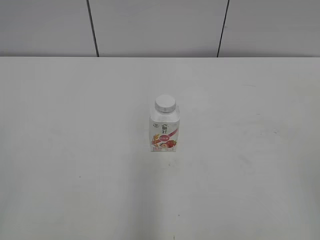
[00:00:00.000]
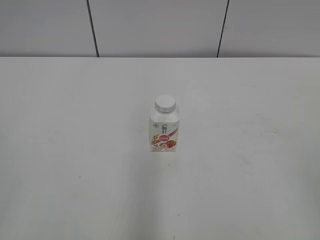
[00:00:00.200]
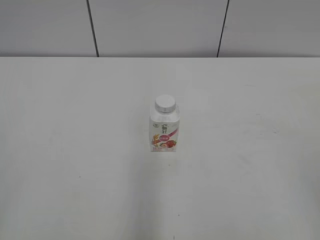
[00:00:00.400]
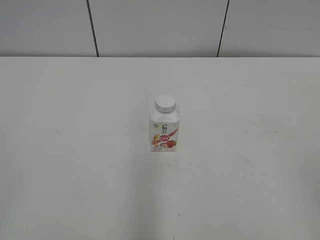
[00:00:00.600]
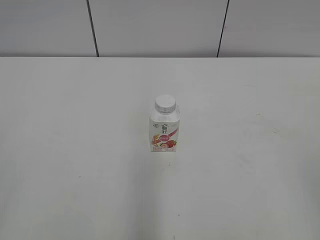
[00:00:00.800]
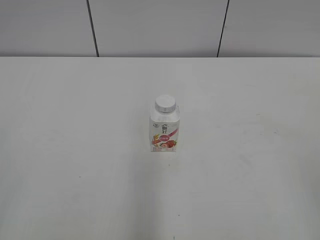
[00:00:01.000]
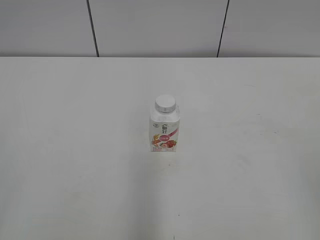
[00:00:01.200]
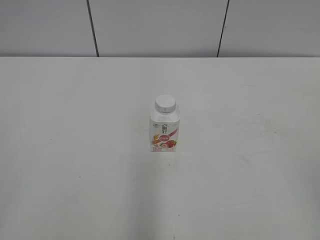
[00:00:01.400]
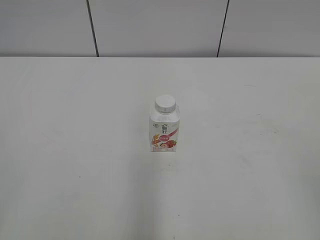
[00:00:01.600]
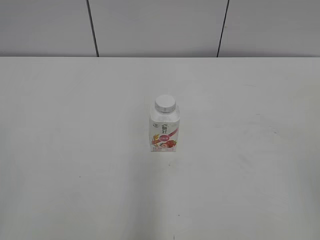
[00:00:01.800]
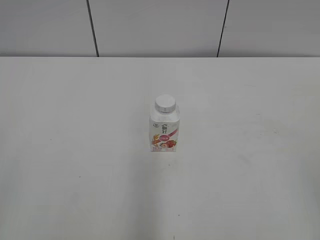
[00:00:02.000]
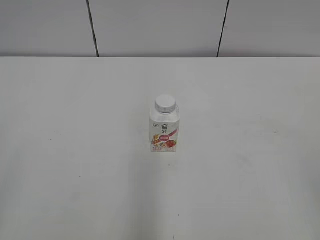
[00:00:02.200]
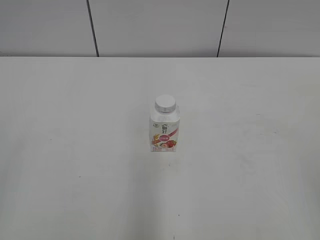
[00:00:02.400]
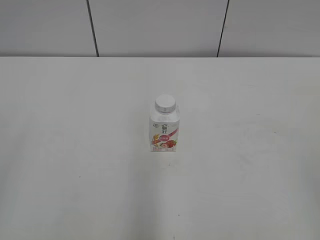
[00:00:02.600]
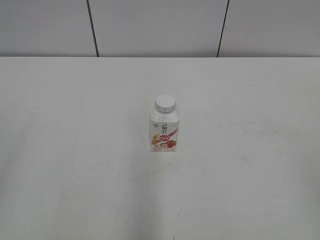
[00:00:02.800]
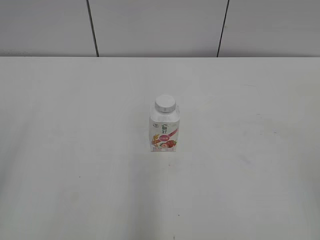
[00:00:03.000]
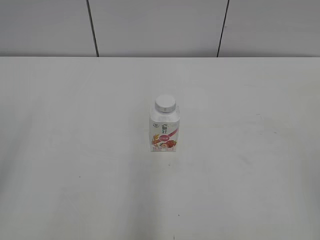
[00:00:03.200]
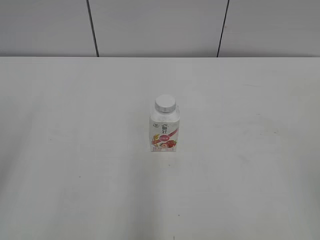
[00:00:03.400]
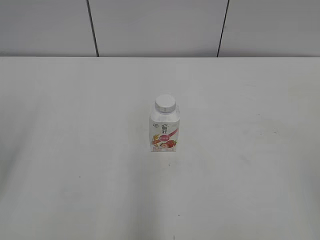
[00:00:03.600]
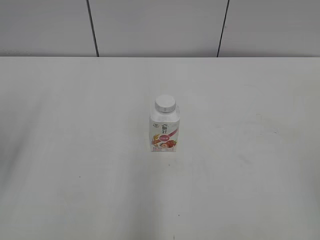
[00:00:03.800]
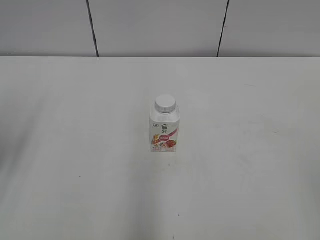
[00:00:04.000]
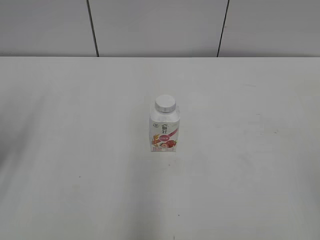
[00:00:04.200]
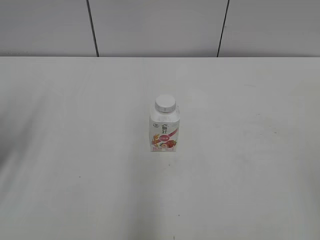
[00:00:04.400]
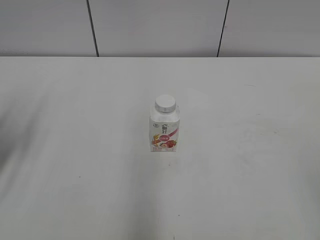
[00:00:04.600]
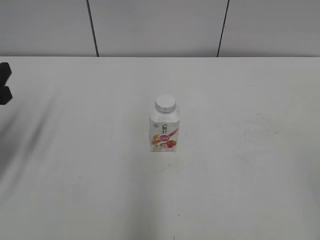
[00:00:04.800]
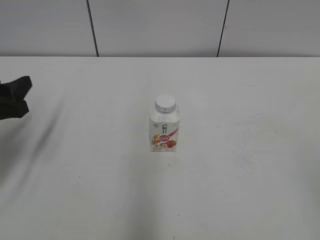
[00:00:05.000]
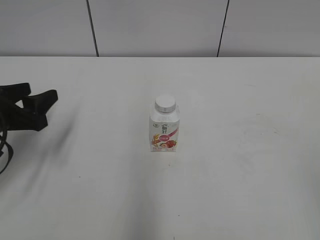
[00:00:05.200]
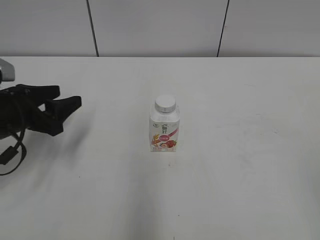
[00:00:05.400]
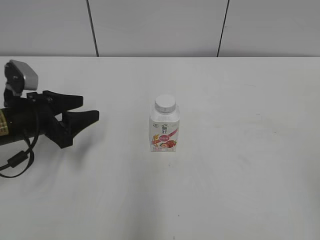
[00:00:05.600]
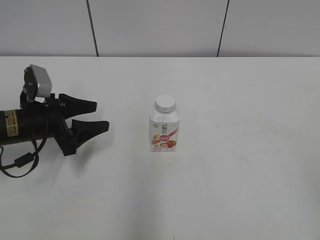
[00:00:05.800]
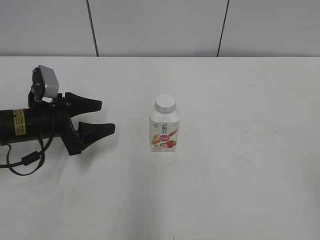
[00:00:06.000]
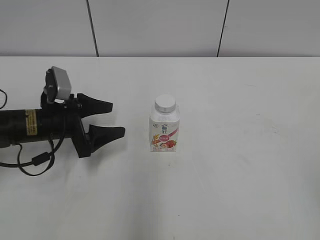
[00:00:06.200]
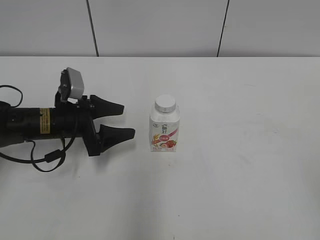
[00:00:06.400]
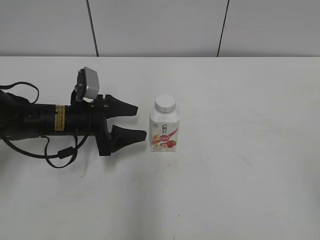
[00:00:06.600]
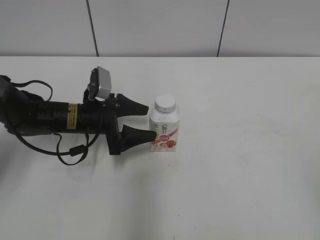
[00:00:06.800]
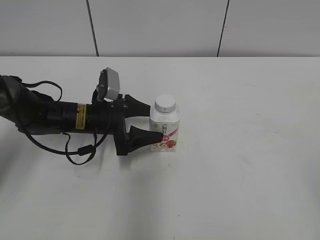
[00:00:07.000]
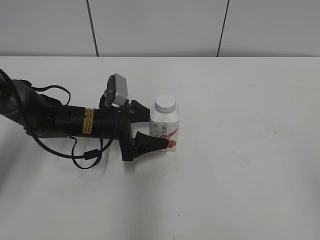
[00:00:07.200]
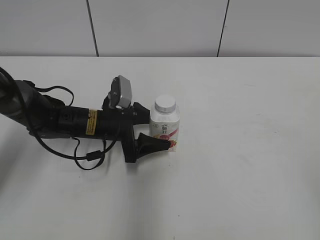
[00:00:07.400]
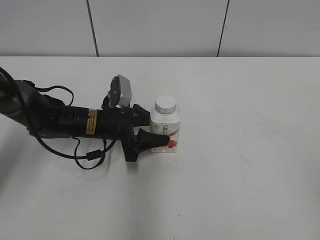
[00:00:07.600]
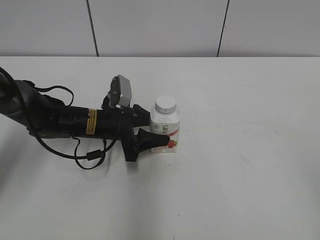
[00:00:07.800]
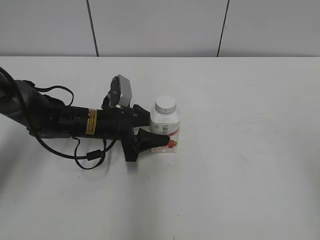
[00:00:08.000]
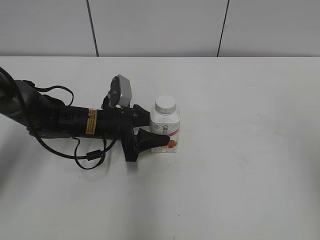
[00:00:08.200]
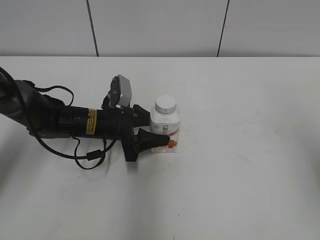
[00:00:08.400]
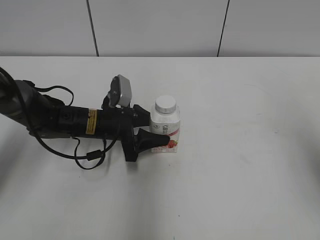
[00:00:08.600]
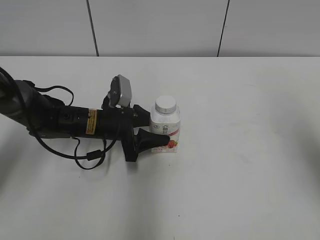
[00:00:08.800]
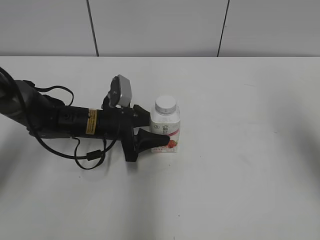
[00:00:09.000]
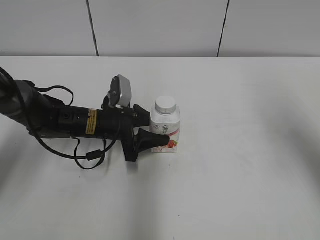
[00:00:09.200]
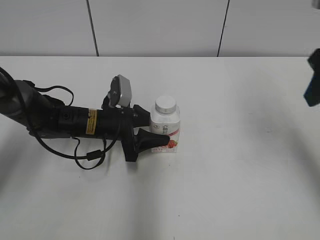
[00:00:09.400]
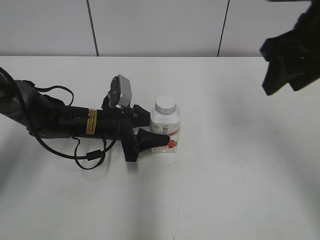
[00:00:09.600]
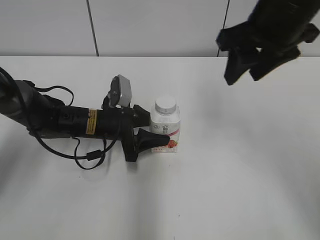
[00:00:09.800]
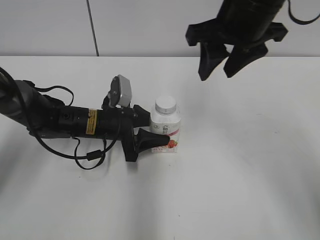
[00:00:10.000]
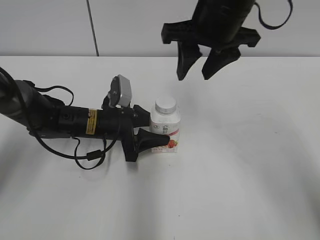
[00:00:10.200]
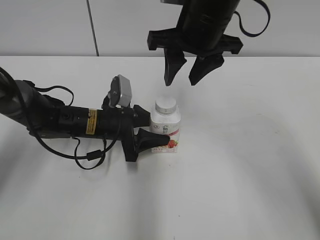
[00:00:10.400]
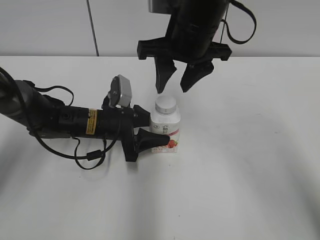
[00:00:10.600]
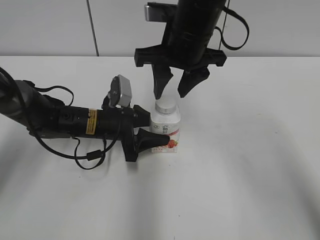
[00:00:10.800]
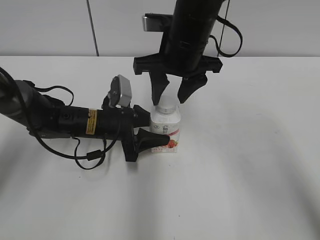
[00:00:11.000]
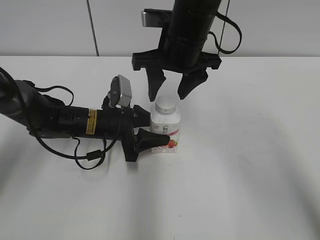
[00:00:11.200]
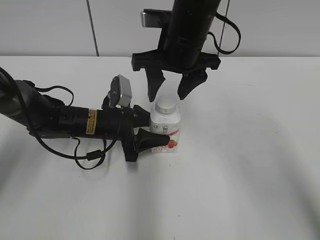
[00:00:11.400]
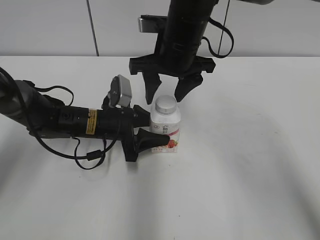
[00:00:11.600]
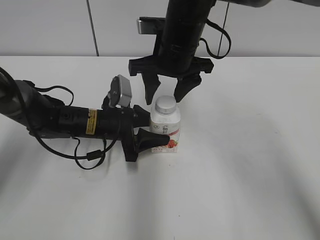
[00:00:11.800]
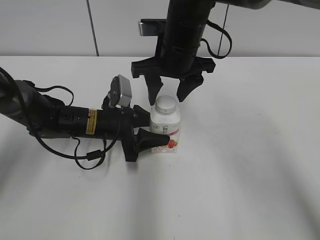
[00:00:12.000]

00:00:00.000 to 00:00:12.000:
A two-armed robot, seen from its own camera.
Step, 00:00:00.000 to 00:00:07.800: Grab the Yili Changqing with the left hand.
00:00:04.400 to 00:00:06.000: The left gripper shifts approximately 20 cm downward, forward and to the right.
00:00:06.000 to 00:00:07.600: The left gripper heads to the right, covering about 10 cm, and closes.
00:00:07.600 to 00:00:09.000: The right gripper heads forward, covering some 20 cm, and closes up.
00:00:09.000 to 00:00:10.400: The right gripper is displaced to the left and forward by roughly 25 cm.
00:00:10.400 to 00:00:12.000: The right gripper heads downward, covering about 5 cm, and opens up.

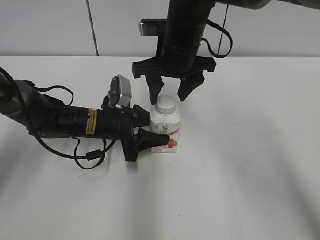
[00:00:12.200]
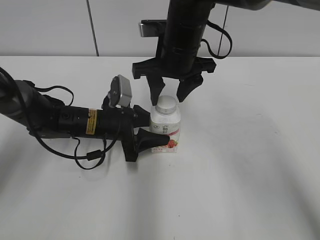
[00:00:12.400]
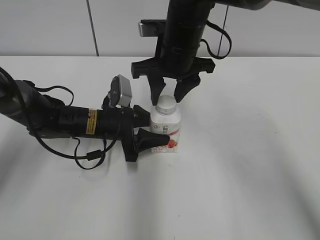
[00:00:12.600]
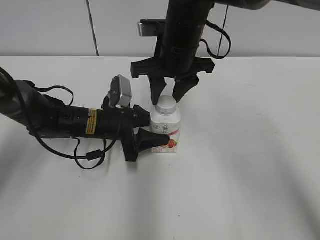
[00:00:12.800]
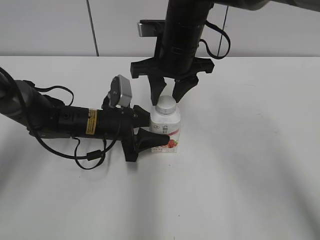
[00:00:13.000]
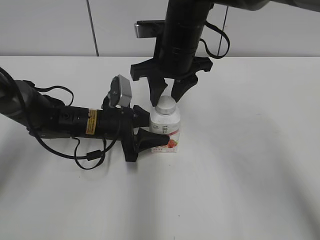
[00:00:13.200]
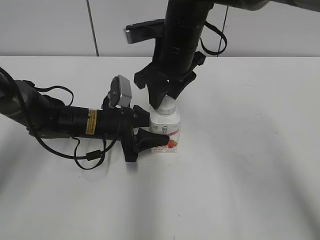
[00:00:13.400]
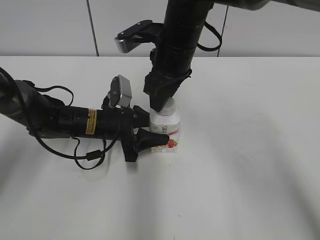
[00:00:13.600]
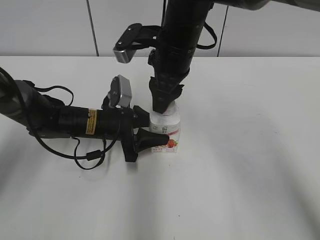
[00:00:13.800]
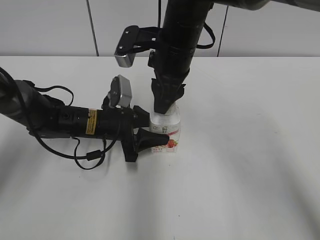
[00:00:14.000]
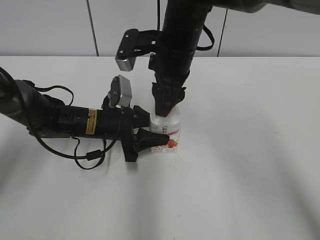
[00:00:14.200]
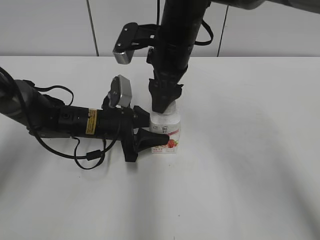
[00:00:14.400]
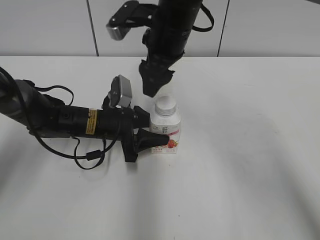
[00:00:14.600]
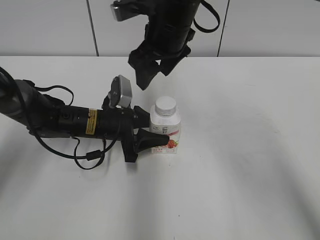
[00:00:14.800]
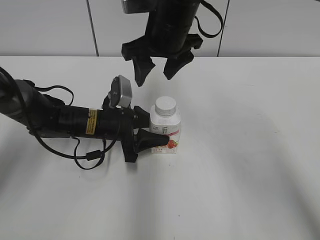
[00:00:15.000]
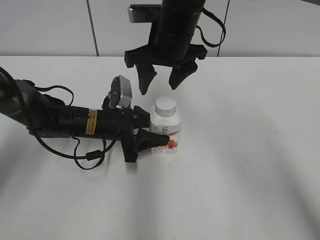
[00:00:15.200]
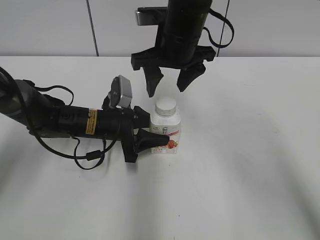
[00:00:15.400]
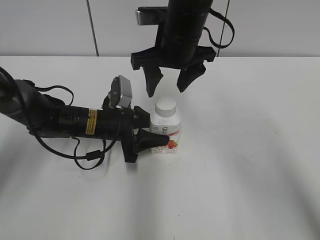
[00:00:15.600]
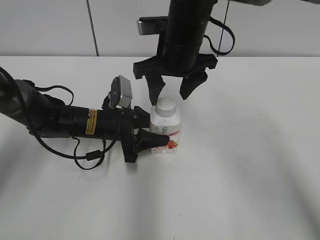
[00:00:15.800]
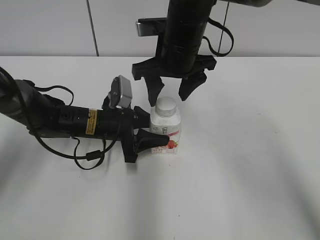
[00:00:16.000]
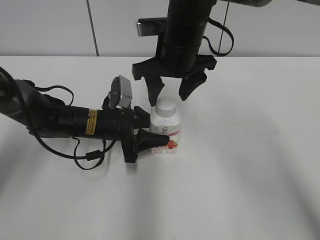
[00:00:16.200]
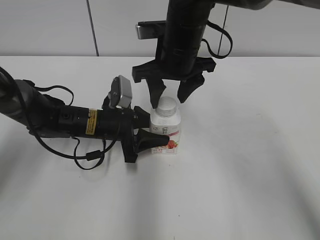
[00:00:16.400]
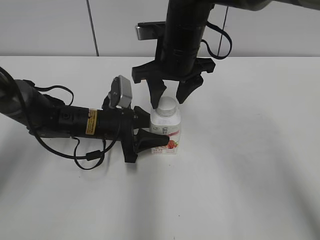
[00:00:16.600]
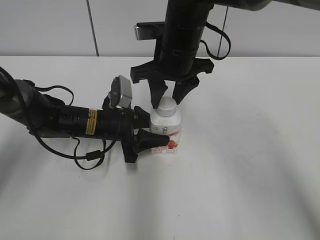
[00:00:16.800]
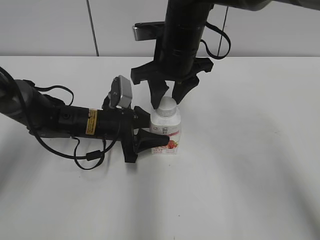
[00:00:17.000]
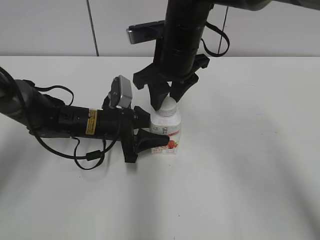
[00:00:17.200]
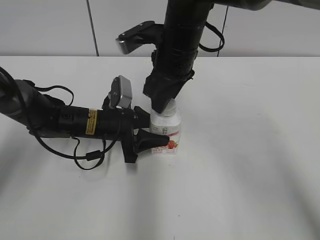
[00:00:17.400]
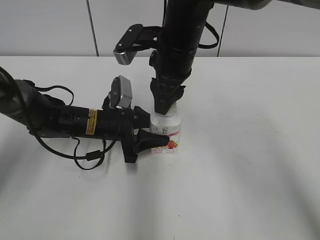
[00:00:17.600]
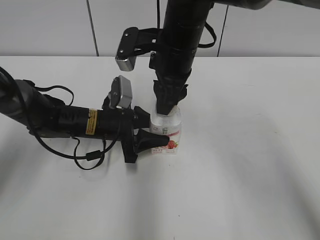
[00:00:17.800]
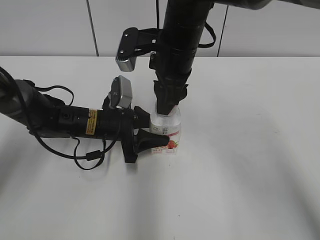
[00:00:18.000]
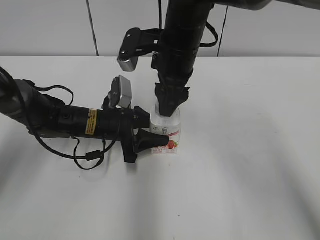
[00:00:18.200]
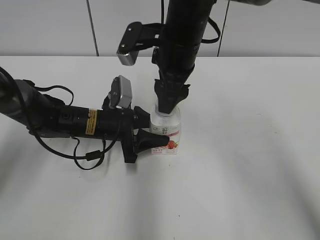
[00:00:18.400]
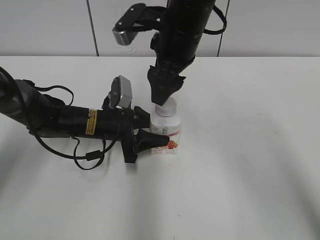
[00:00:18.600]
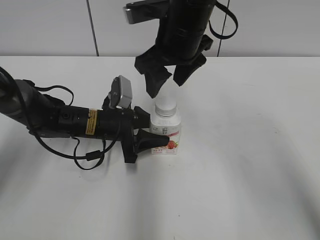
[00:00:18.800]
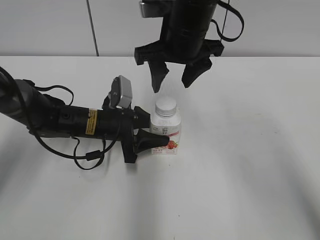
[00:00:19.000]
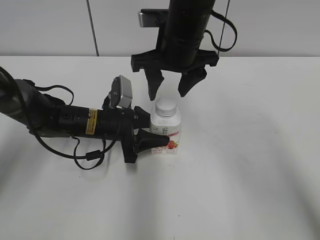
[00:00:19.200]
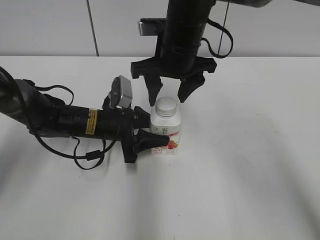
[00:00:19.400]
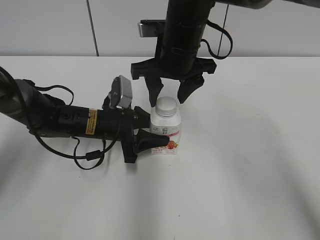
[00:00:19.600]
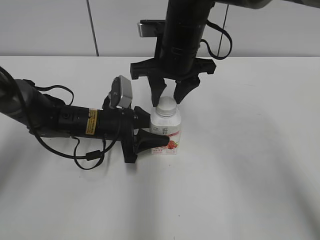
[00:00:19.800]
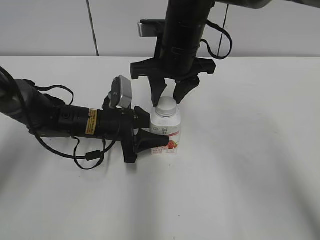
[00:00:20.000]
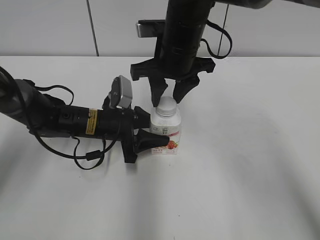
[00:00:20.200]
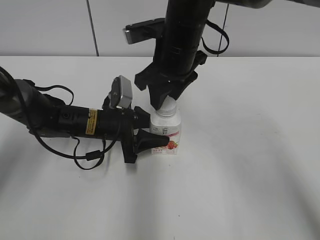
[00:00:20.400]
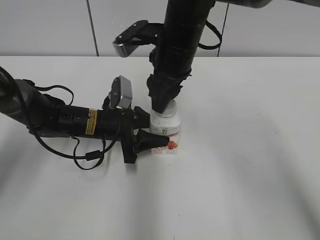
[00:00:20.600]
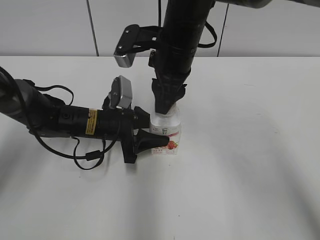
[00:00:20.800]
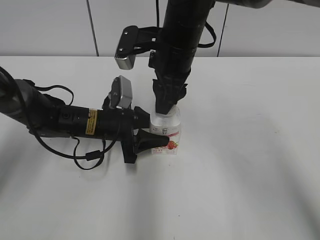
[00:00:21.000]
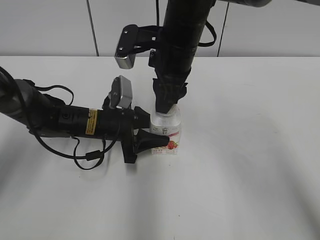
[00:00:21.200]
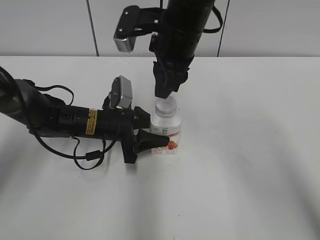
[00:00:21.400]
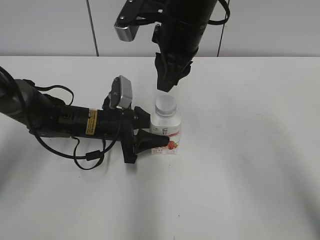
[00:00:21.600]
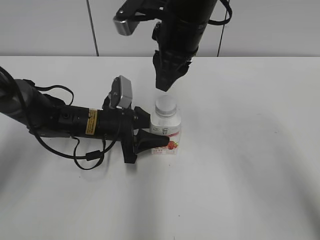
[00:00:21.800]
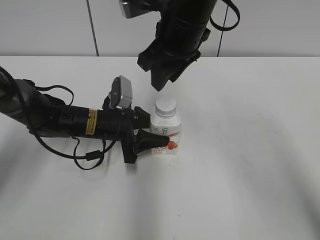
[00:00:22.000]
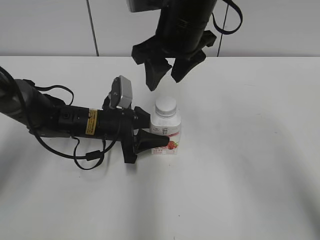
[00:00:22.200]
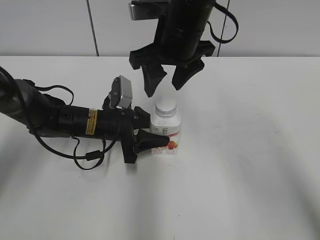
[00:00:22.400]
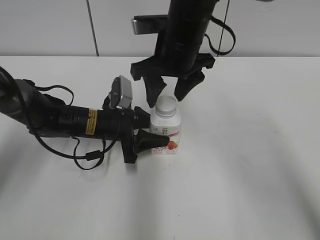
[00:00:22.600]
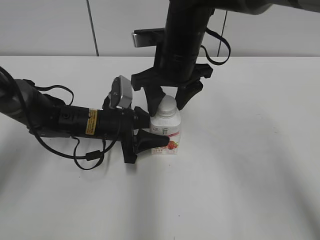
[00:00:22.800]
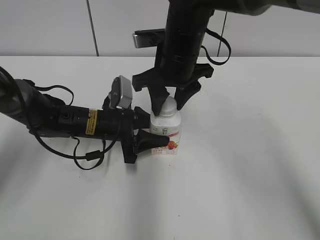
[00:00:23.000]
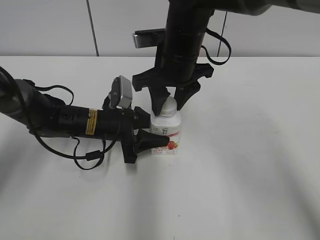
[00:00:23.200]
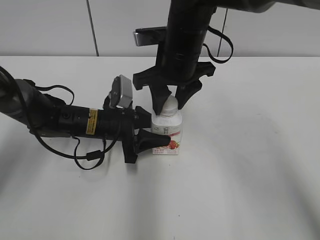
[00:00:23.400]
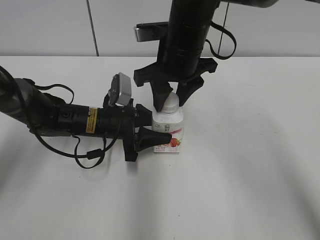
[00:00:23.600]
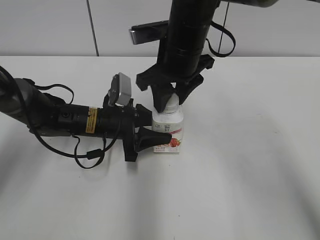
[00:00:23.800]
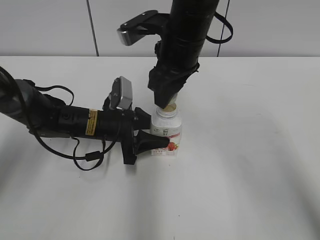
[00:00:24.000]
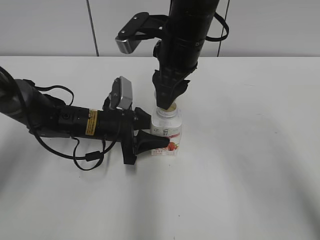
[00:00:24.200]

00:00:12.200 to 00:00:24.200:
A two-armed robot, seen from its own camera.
00:00:12.200 to 00:00:13.800: The right gripper closes its fingers.
00:00:13.800 to 00:00:15.200: The right gripper opens.
00:00:15.200 to 00:00:16.600: There are only small adjustments of the grippers.
00:00:16.600 to 00:00:18.200: The right gripper closes, then opens again.
00:00:21.200 to 00:00:22.600: The right gripper opens.
00:00:22.600 to 00:00:24.200: The right gripper closes its fingers.
